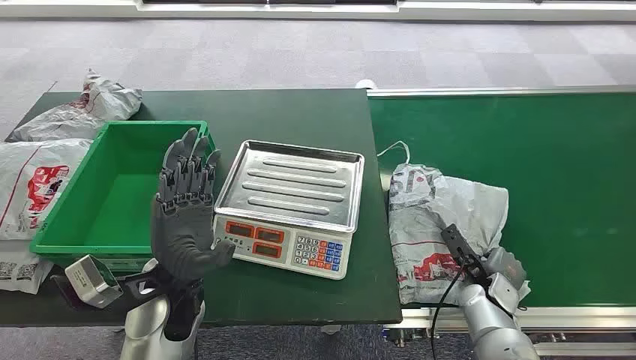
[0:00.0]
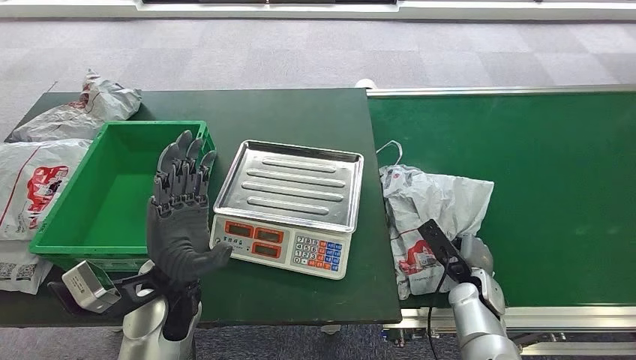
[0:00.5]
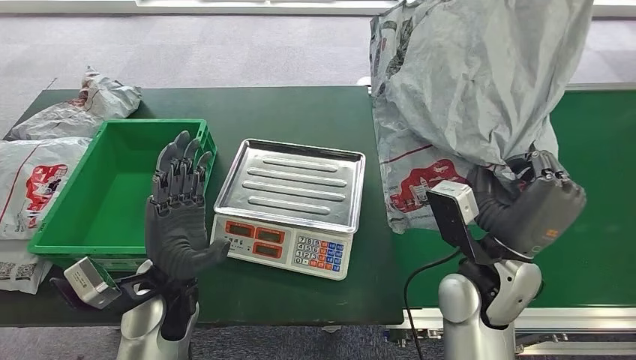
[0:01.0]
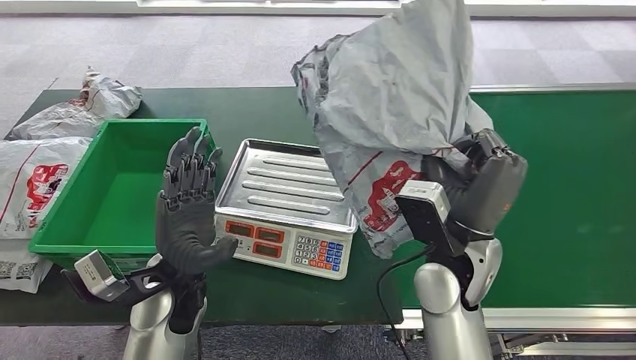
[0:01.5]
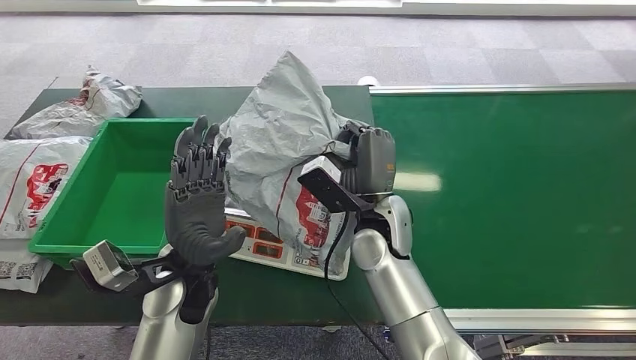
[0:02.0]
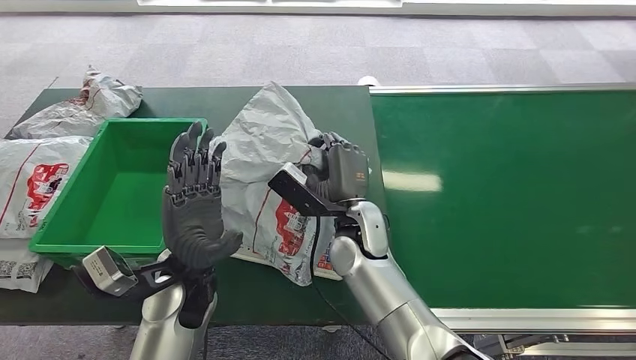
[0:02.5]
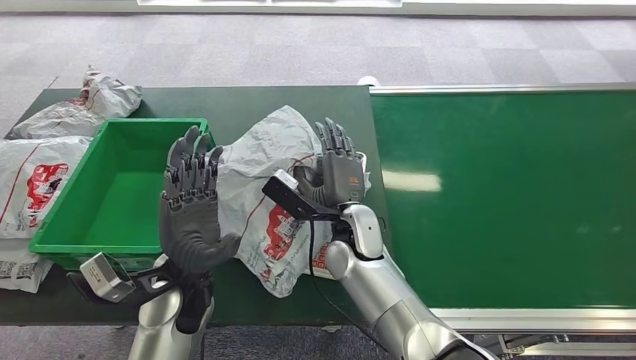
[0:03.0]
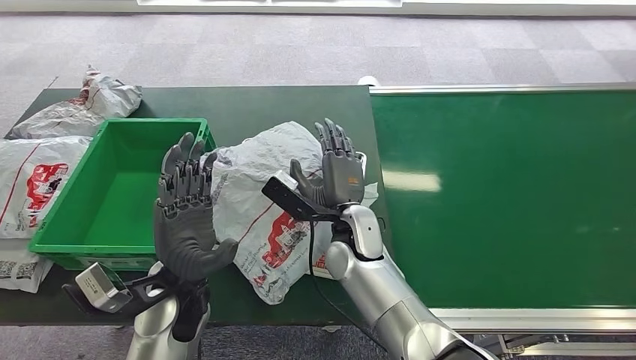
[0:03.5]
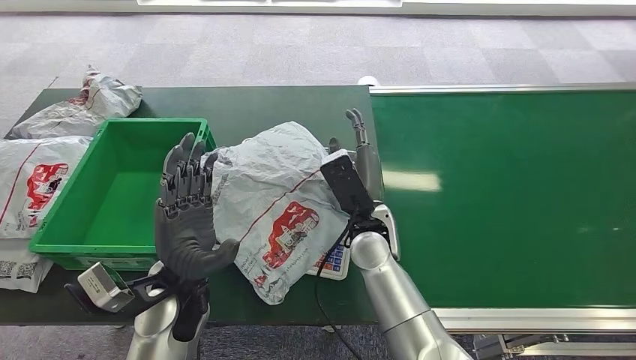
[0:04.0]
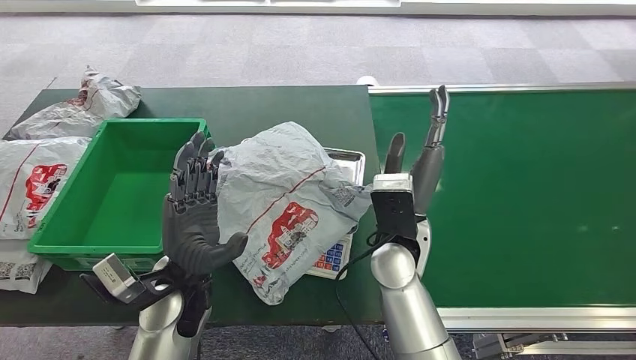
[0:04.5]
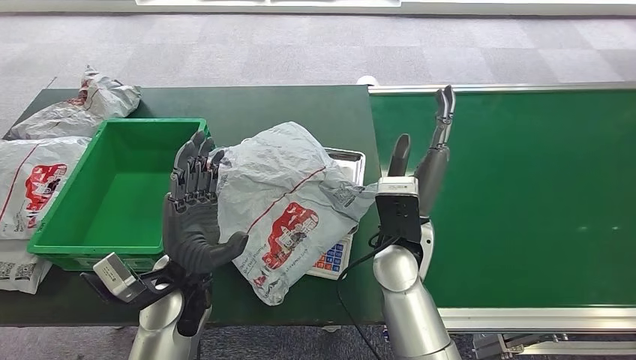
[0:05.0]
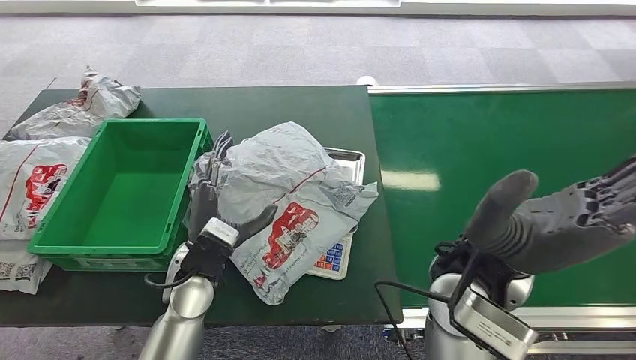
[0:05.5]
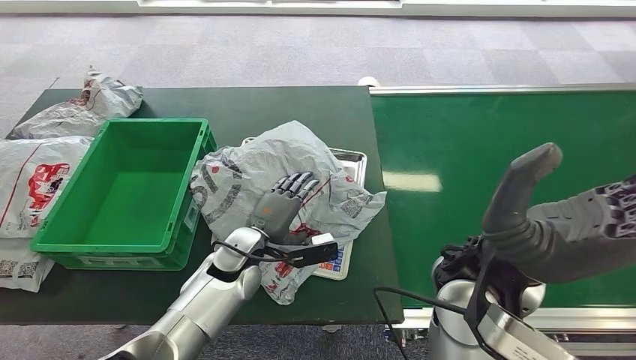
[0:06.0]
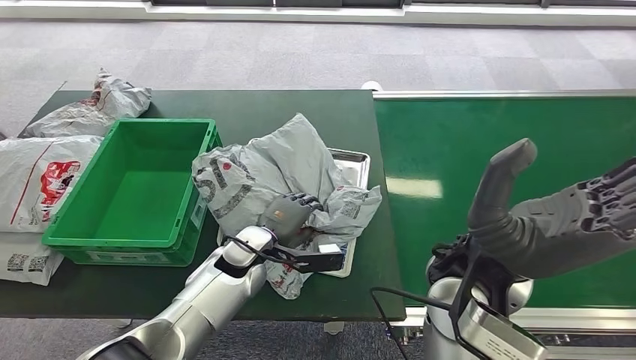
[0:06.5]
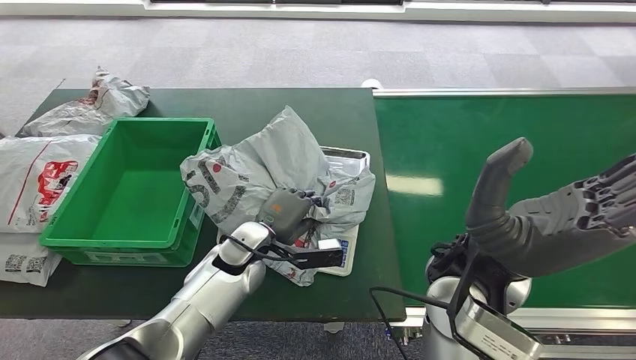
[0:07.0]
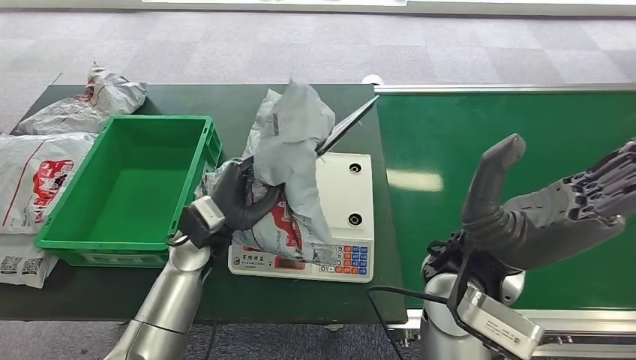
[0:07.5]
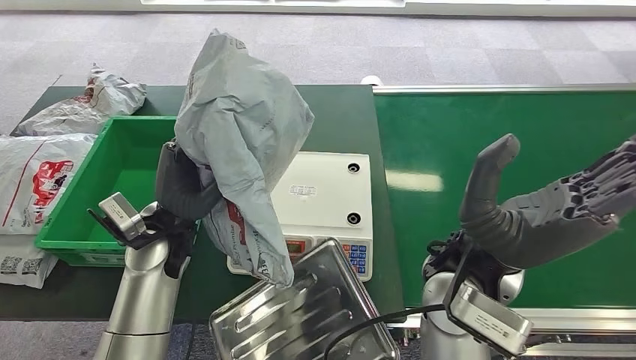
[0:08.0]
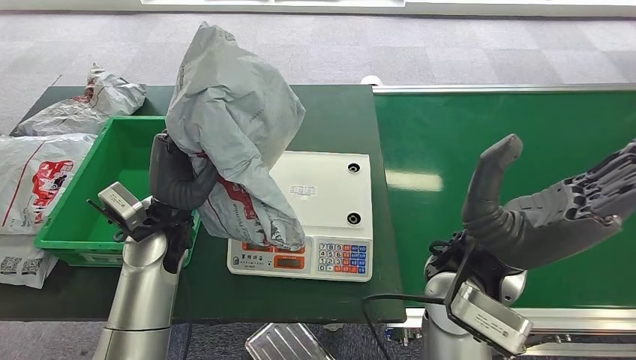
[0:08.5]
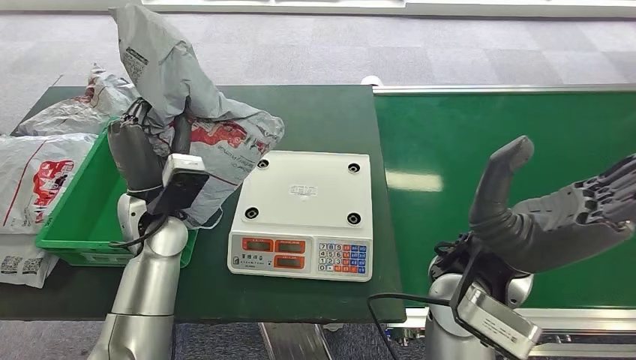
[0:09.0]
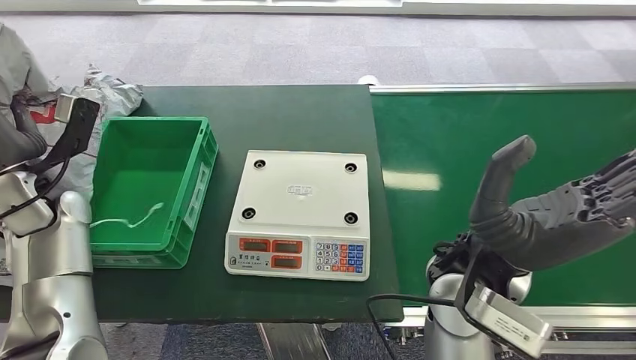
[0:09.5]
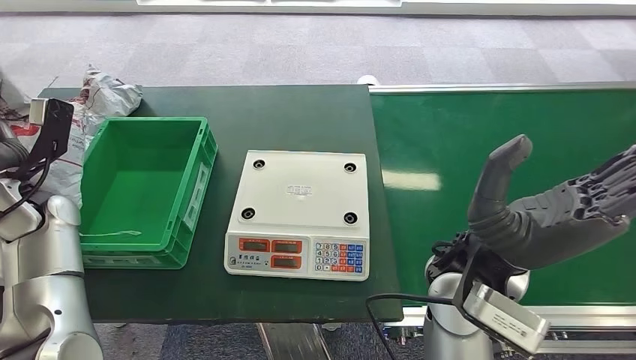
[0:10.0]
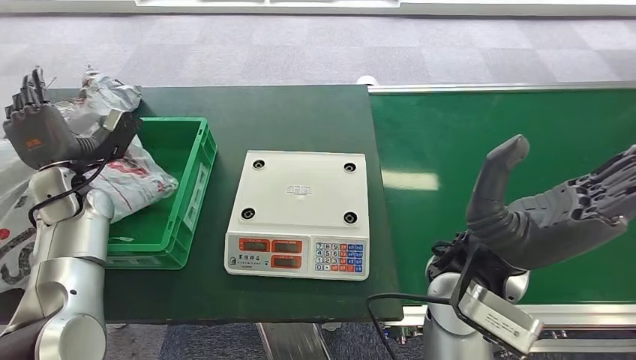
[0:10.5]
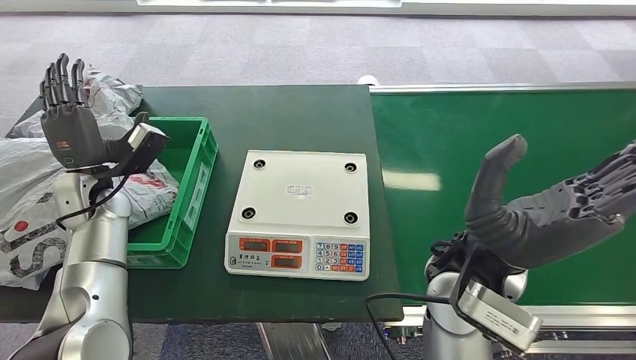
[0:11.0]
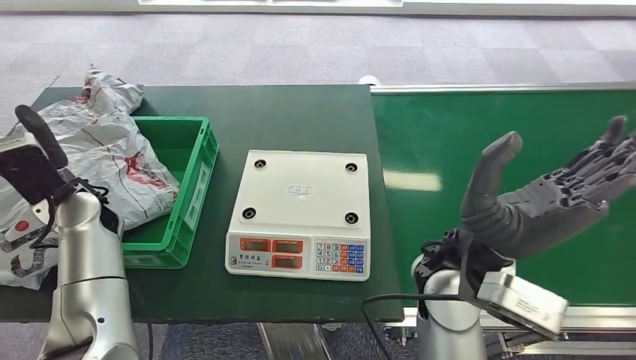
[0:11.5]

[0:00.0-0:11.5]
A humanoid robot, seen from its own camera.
Step, 0:00.0 to 0:01.5: Pick up the package from the conveyor belt.
Step, 0:02.0 to 0:04.5: Place the package onto the inbound machine.
Step, 0:05.0 to 0:07.5: Pick up the package from the inbound machine.
Step, 0:08.0 to 0:11.5: Place the package into the parcel locker.
